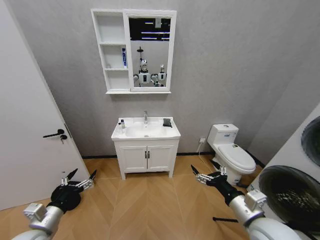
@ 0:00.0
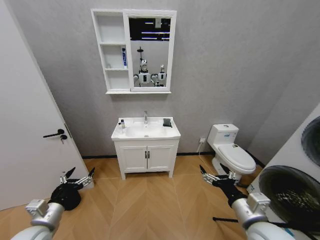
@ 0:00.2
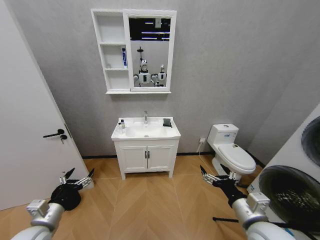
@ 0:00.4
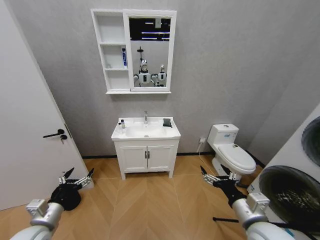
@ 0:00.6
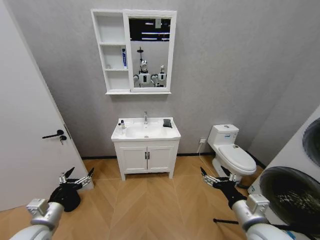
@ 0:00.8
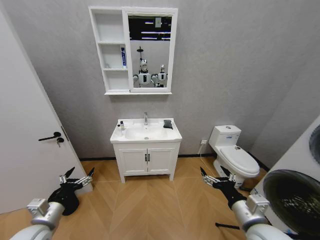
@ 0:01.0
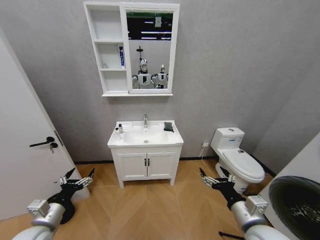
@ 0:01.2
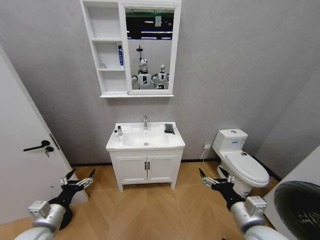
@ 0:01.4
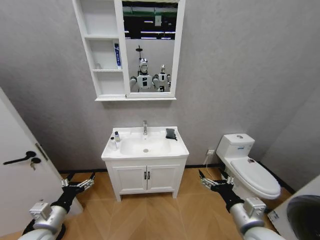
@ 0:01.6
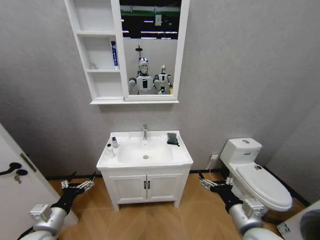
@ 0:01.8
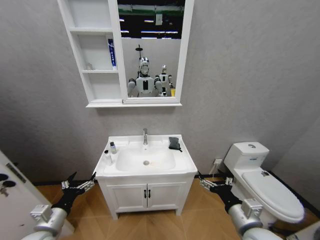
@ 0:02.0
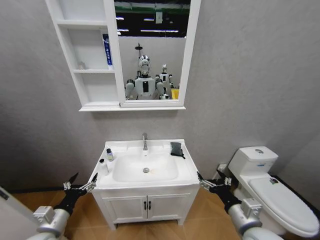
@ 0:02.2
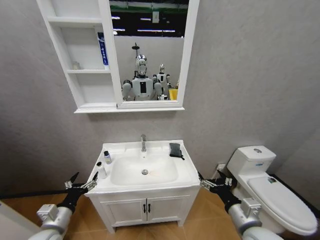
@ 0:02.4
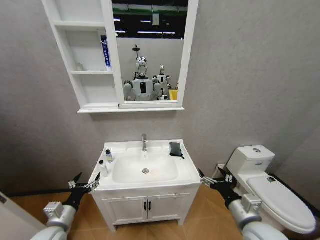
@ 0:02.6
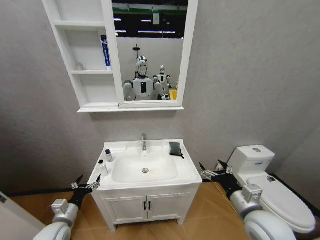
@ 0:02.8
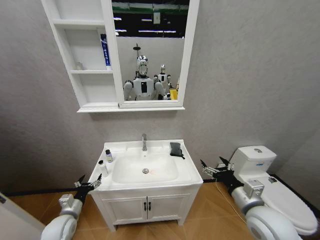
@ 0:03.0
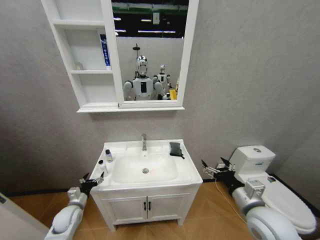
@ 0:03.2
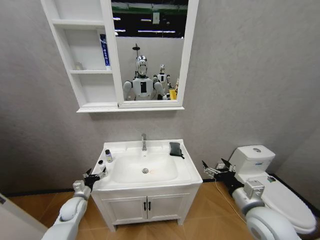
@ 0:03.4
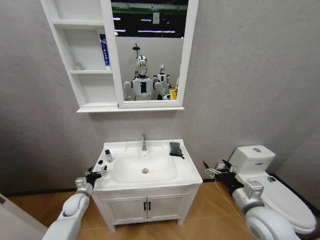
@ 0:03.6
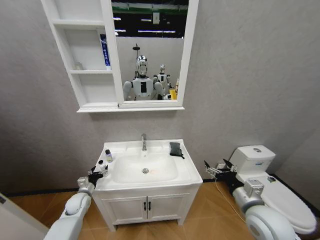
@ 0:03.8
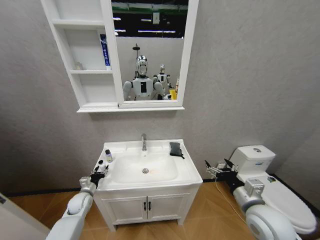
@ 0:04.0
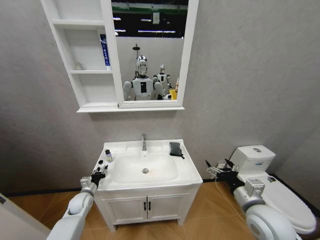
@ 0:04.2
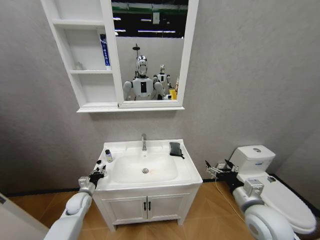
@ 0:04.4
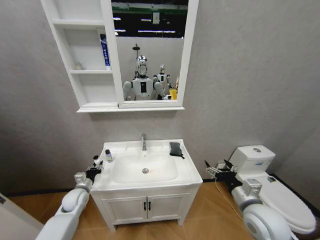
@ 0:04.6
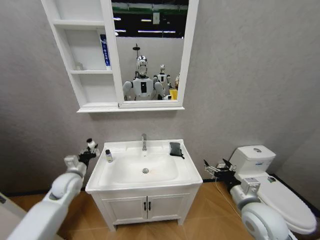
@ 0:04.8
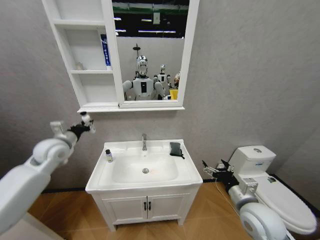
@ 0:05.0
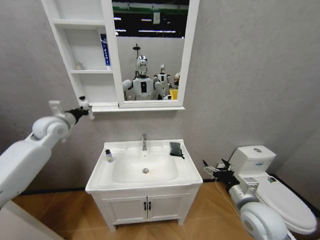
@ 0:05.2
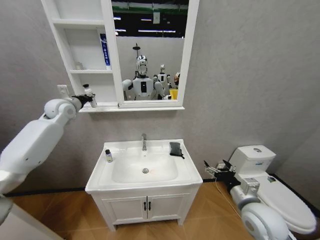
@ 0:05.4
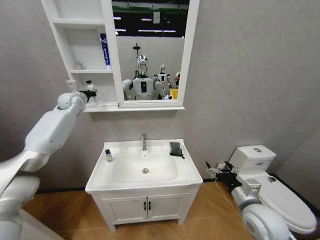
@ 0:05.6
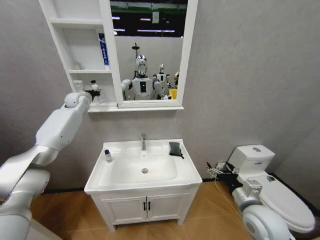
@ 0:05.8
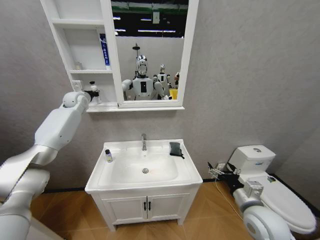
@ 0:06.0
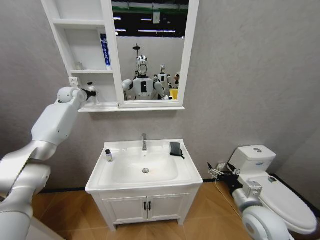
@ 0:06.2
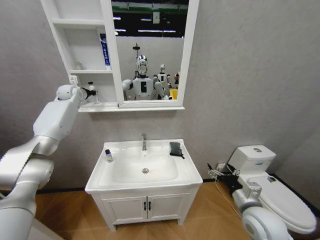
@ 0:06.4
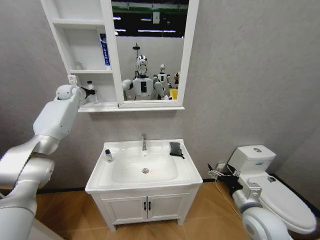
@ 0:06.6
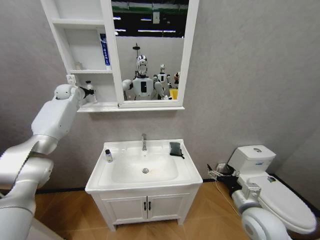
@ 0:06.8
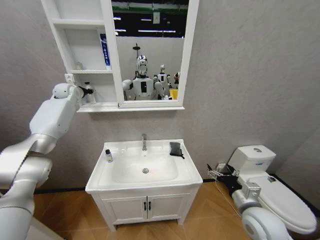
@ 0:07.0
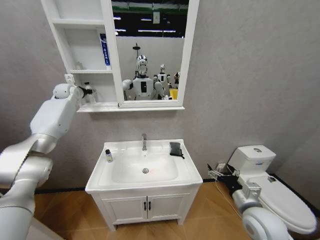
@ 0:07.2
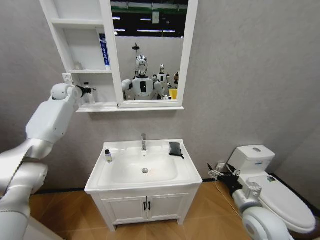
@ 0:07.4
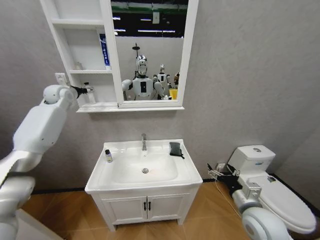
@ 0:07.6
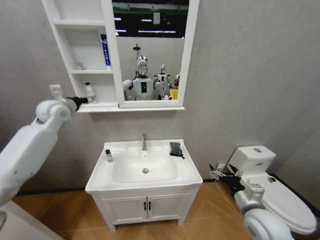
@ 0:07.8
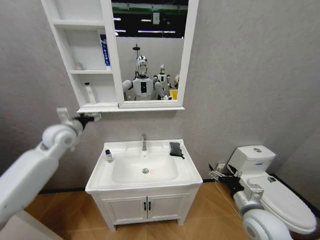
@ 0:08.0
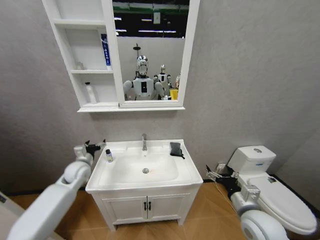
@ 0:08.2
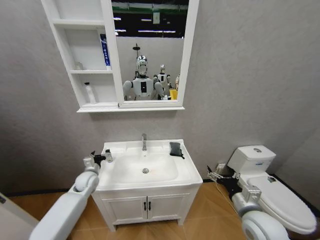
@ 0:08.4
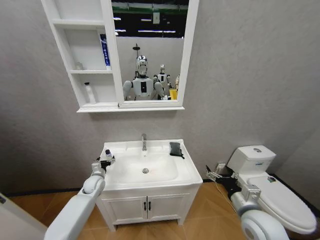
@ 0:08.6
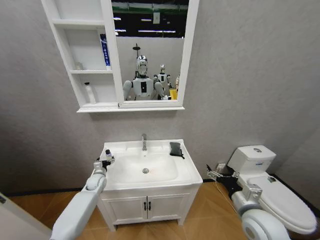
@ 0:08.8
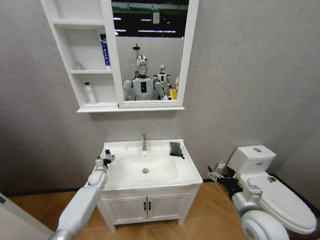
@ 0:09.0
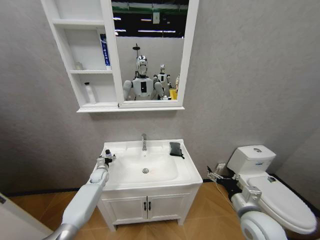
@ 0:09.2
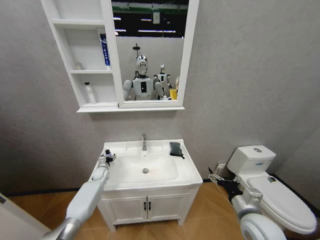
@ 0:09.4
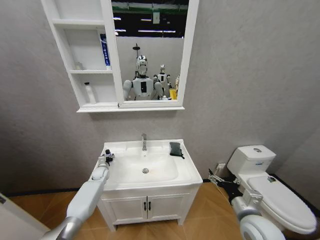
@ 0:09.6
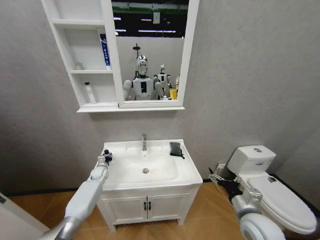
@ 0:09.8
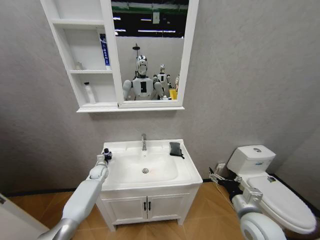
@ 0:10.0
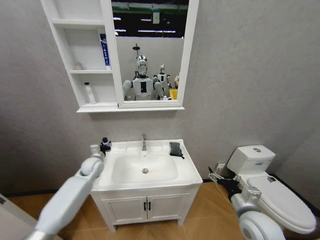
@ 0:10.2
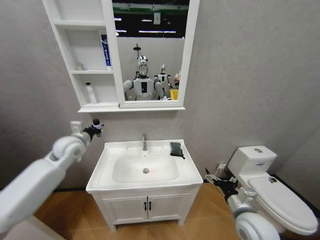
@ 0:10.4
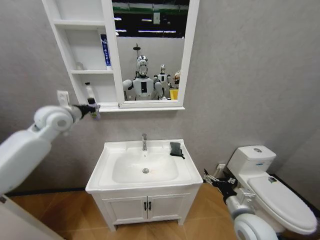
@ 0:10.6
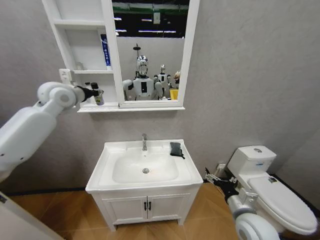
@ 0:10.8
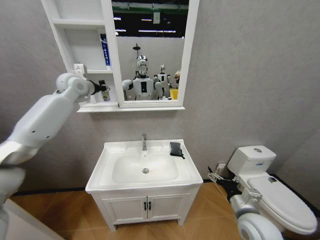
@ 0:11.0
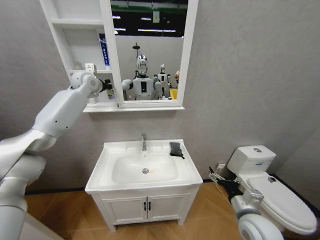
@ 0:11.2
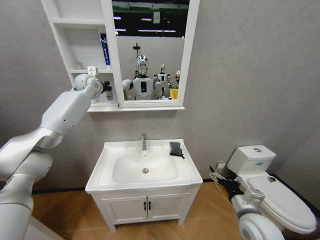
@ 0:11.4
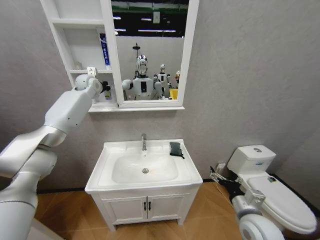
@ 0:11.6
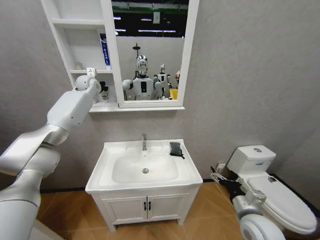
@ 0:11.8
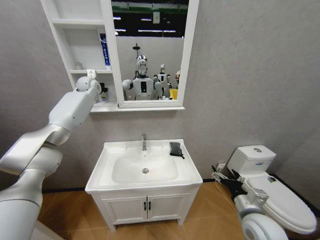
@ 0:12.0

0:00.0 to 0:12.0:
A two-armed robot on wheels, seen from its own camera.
Task of the whole recording: Move facial cleanser and shampoo from washbasin to cabinet, then wipe washbasin with towel.
0:01.6 to 0:03.0: The left gripper moves downward and forward, some 10 cm; the right gripper shifts by approximately 5 cm.
0:03.0 to 0:04.4: The left gripper travels forward by roughly 10 cm, and closes its fingers.
0:04.4 to 0:06.0: The left gripper shifts roughly 50 cm upward and forward.
0:06.0 to 0:07.6: The left gripper moves some 5 cm, and opens its fingers.
0:07.6 to 0:09.0: The left gripper heads downward, covering roughly 40 cm.
0:09.0 to 0:10.4: The left gripper is displaced upward by roughly 30 cm, and closes.
0:10.4 to 0:12.0: The left gripper heads forward and upward, covering roughly 30 cm.

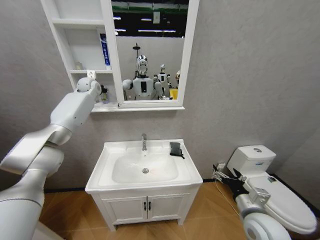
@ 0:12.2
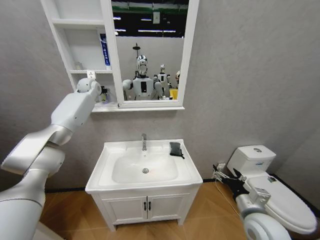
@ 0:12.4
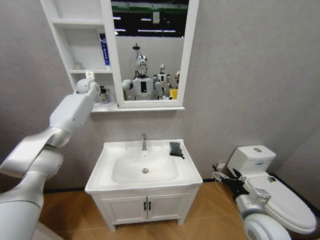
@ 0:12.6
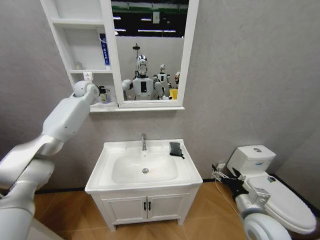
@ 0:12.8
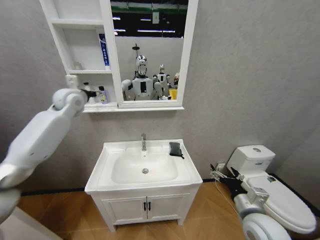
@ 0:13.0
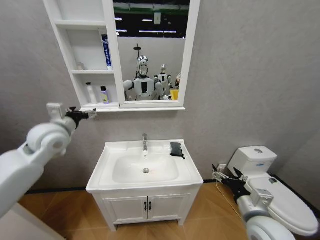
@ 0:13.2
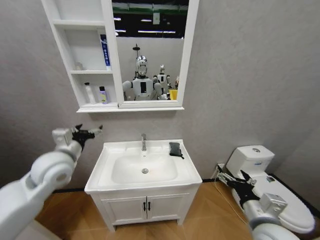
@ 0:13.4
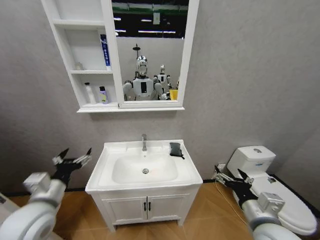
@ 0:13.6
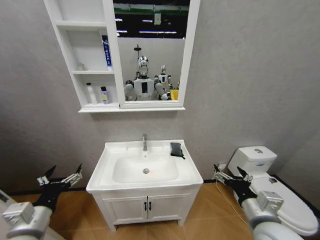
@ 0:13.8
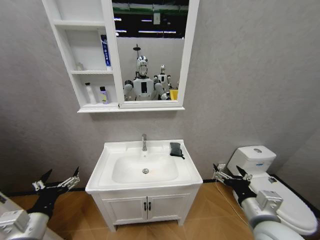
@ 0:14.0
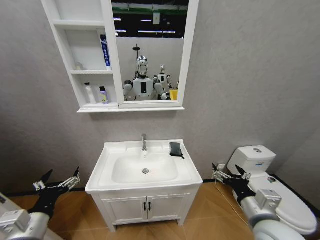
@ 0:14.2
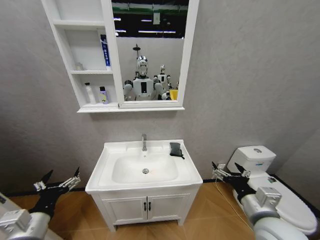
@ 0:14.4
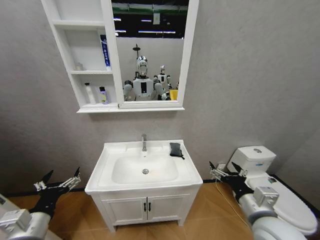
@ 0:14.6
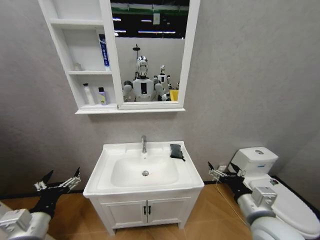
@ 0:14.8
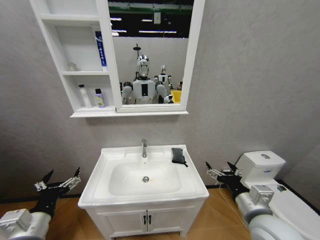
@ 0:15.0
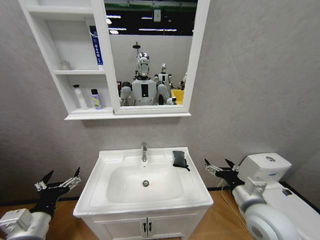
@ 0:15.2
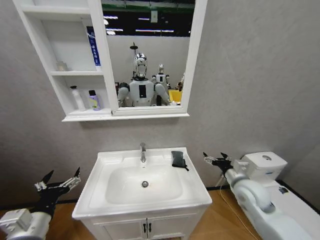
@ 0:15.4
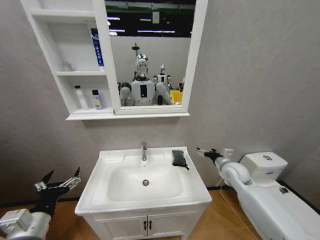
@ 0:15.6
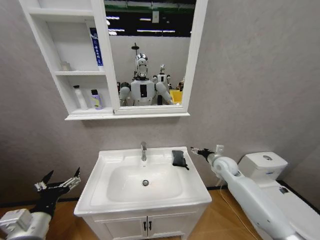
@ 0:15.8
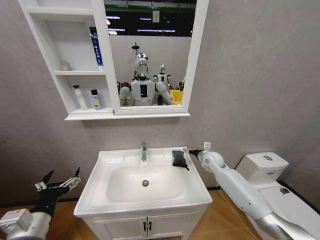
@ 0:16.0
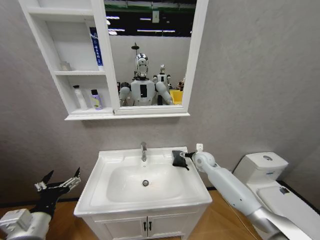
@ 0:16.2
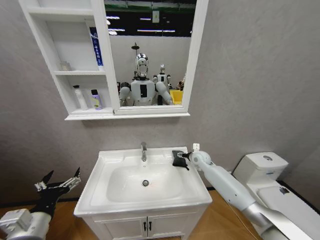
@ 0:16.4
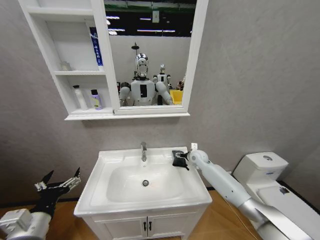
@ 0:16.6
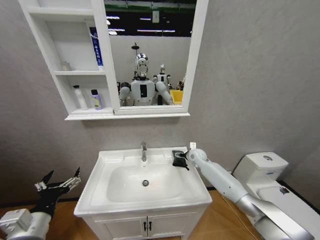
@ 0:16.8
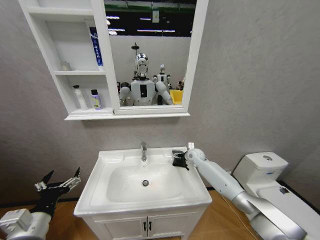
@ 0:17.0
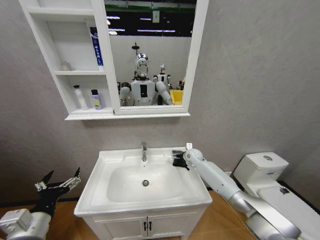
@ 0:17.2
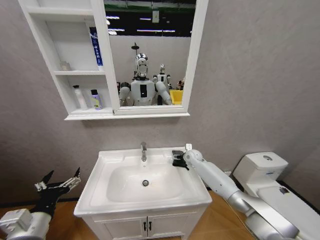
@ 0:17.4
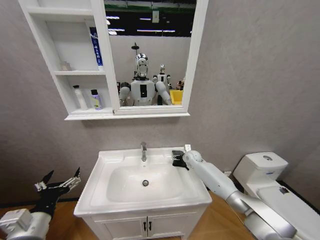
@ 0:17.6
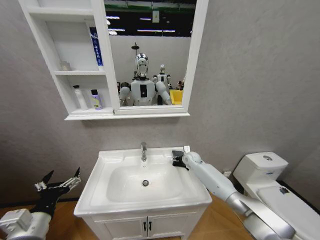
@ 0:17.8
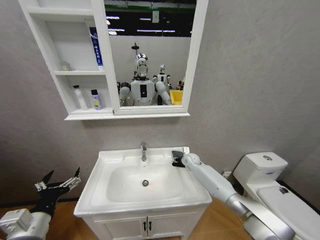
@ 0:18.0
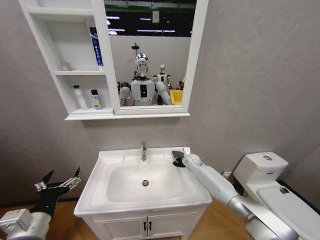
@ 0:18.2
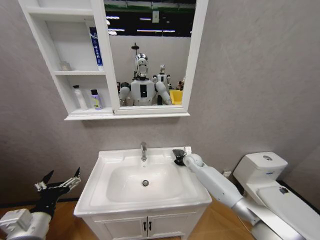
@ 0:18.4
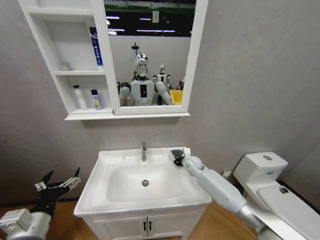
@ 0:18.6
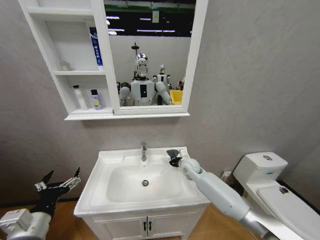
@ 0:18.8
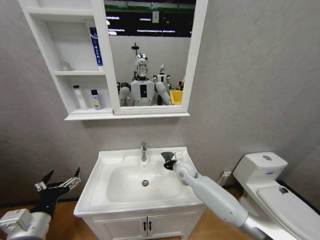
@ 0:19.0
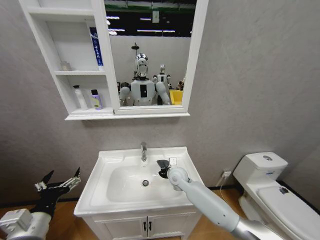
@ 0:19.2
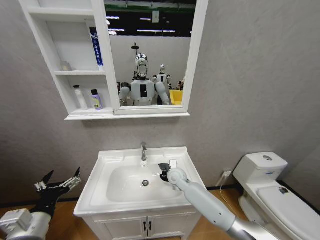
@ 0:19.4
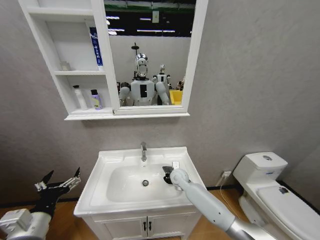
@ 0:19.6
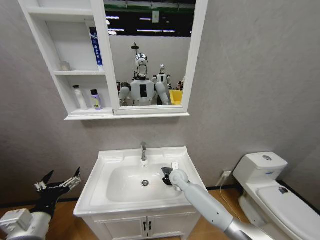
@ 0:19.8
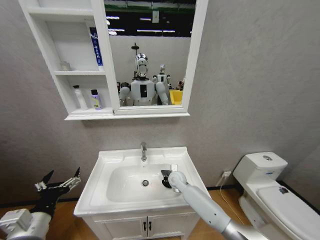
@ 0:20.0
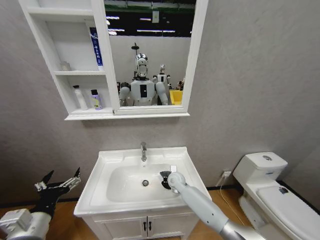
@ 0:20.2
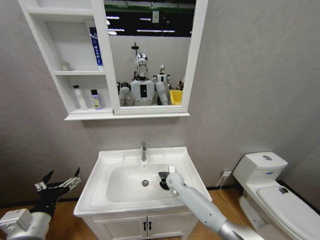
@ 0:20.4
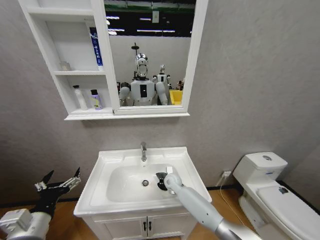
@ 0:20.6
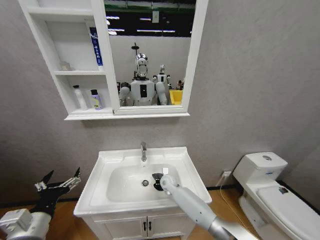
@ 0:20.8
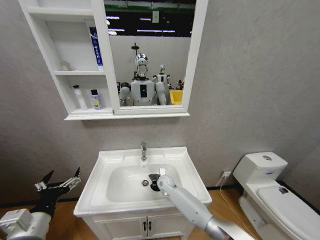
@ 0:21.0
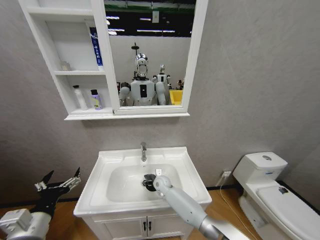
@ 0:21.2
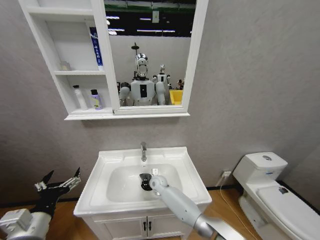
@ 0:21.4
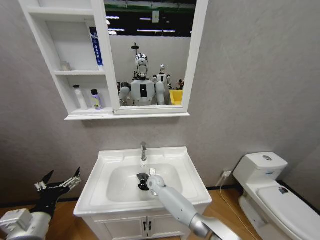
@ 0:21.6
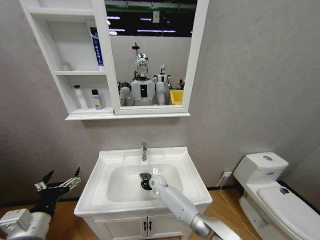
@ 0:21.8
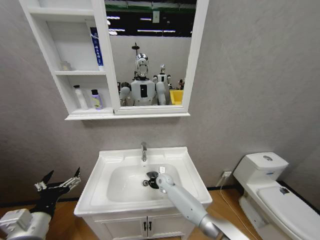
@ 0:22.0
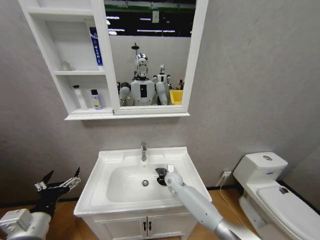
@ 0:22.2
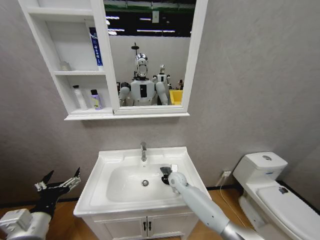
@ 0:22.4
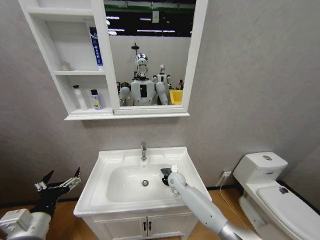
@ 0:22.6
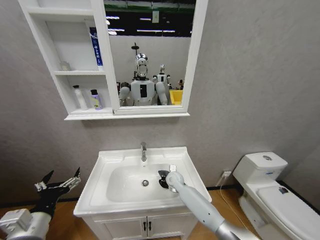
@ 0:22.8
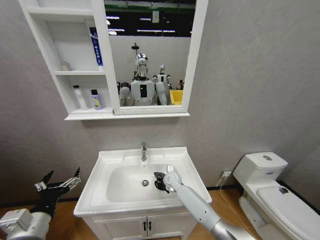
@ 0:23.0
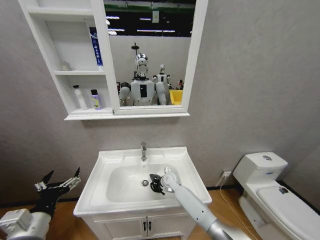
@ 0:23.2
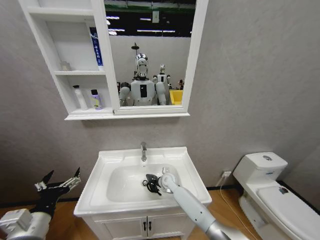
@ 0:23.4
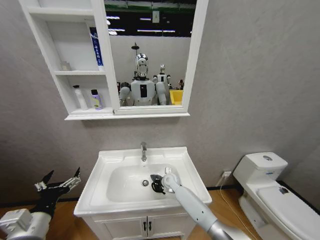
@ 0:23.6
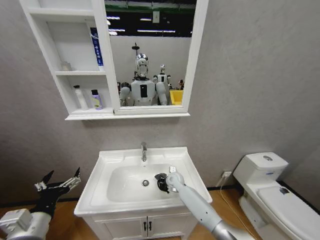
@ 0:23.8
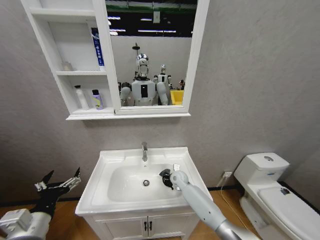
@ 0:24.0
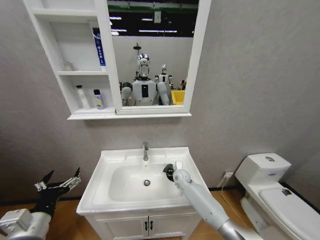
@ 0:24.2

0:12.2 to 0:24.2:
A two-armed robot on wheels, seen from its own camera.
Task of the whole recording: Move facial cleanser and shampoo from washbasin to cabinet, then wipe washbasin with towel.
0:12.2 to 0:13.8: The right gripper travels upward by approximately 5 cm; the left gripper goes some 60 cm backward and downward, and opens up.
0:15.2 to 0:16.6: The right gripper travels forward by some 30 cm.
0:16.6 to 0:18.2: The right gripper ends up some 5 cm from where it was, and closes its fingers.
0:18.2 to 0:19.8: The right gripper goes some 15 cm to the left and backward, and closes its fingers.
0:19.8 to 0:21.2: The right gripper moves to the left and downward, some 10 cm.
0:21.2 to 0:22.6: The right gripper goes some 10 cm to the right.
